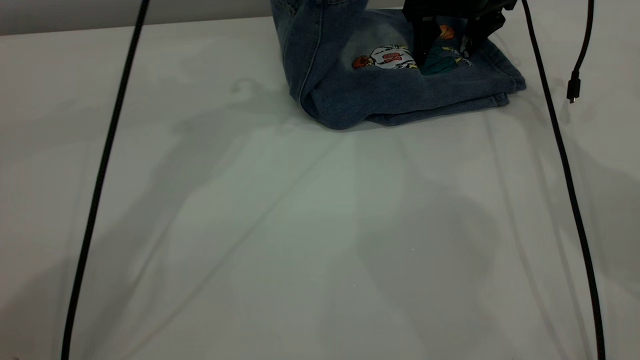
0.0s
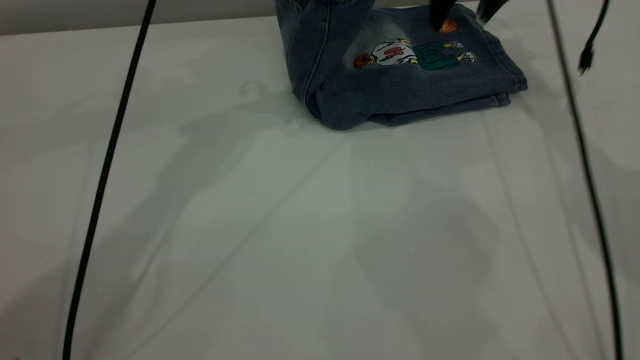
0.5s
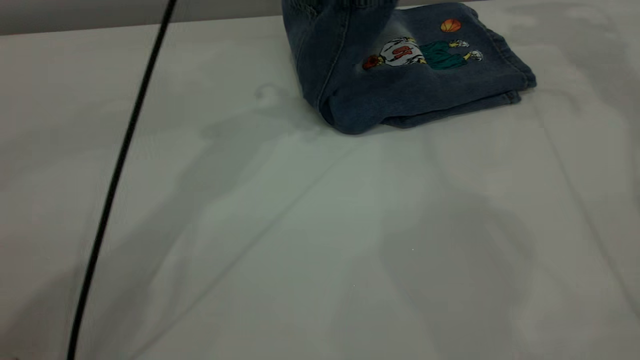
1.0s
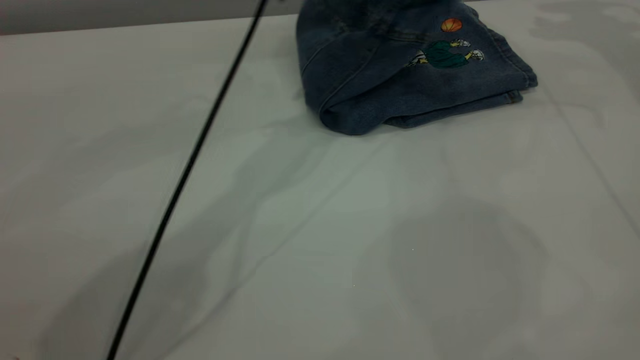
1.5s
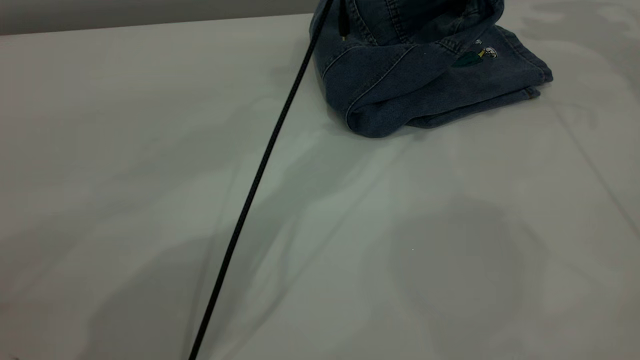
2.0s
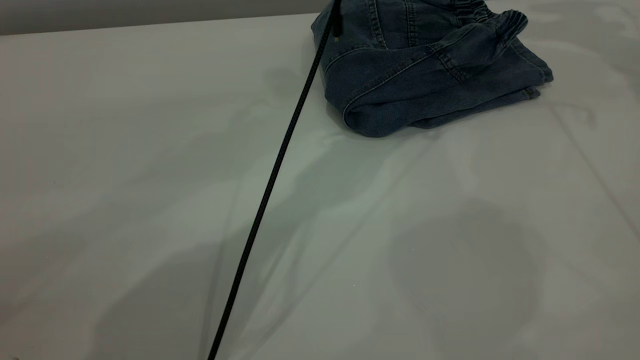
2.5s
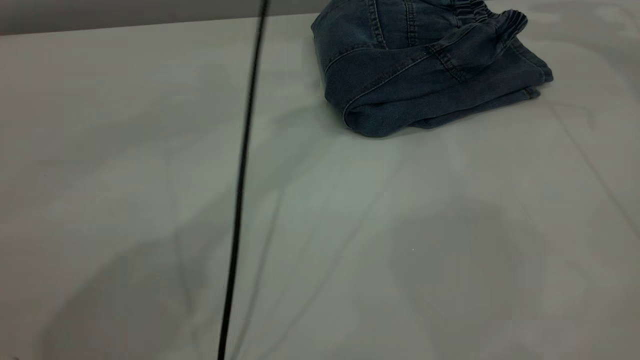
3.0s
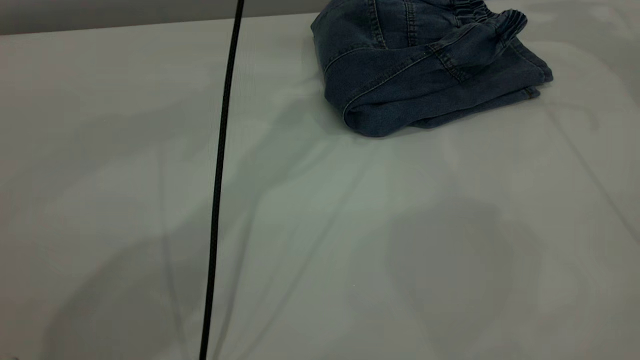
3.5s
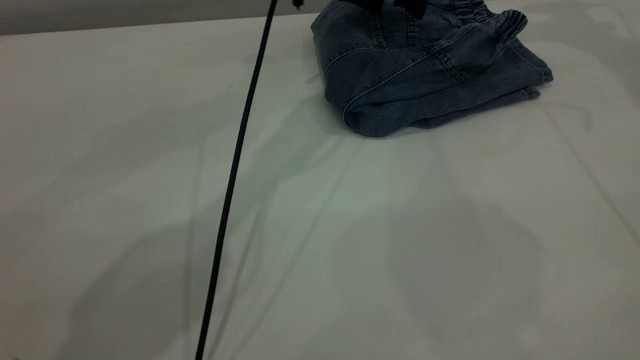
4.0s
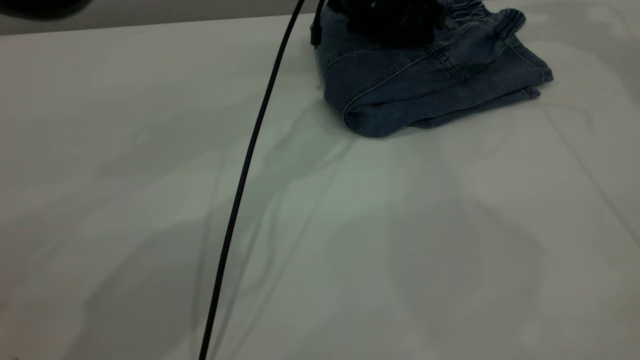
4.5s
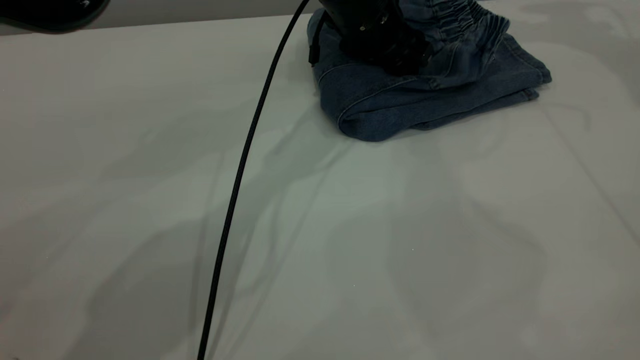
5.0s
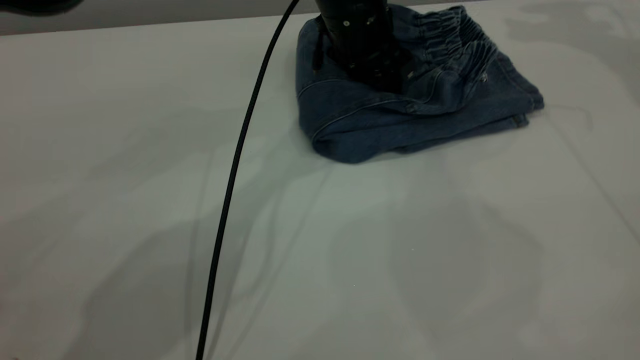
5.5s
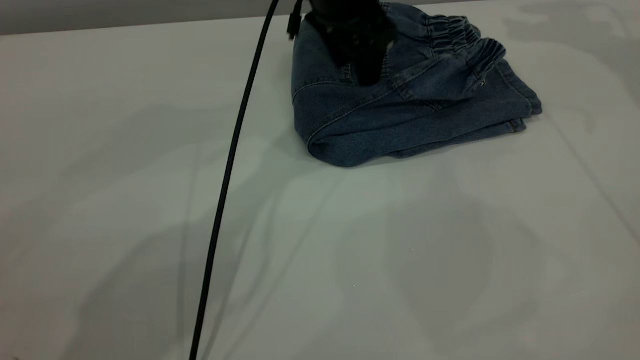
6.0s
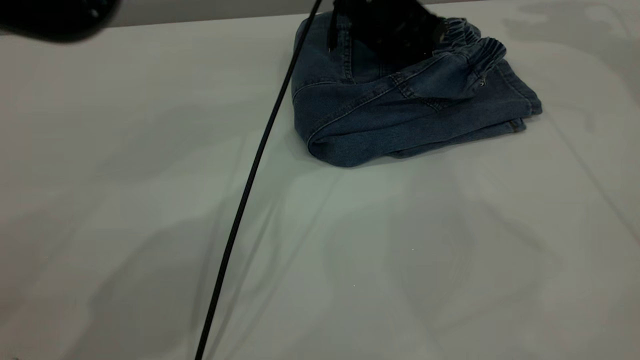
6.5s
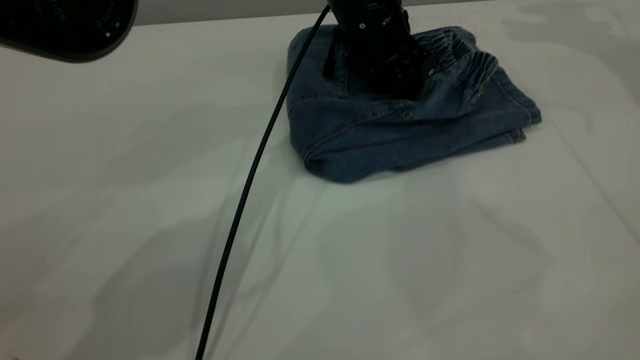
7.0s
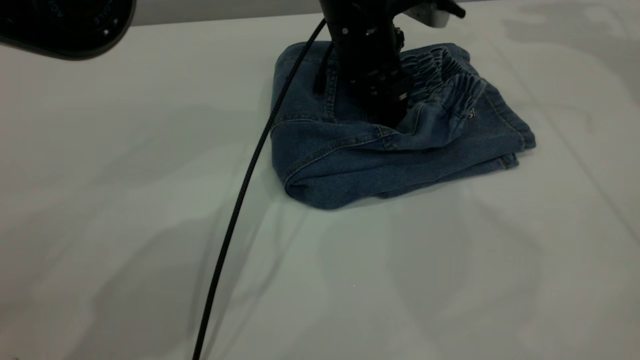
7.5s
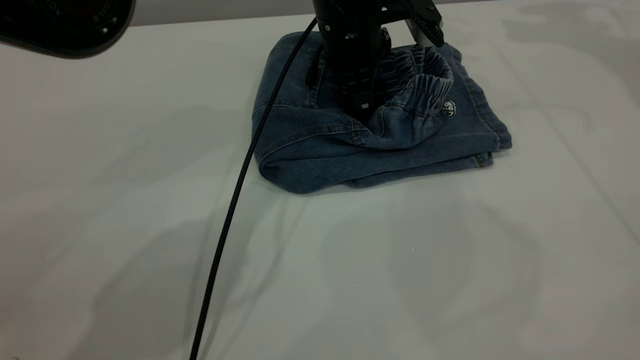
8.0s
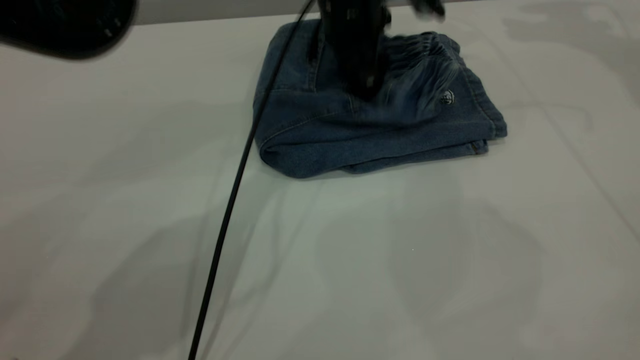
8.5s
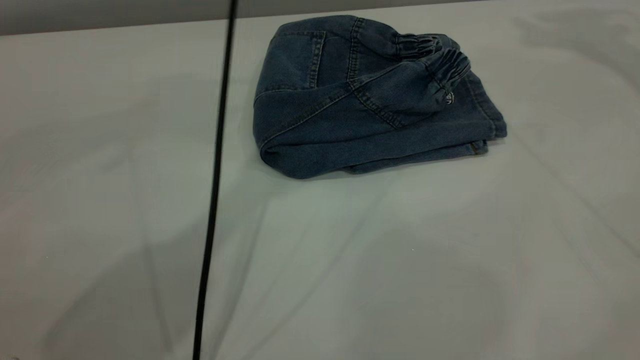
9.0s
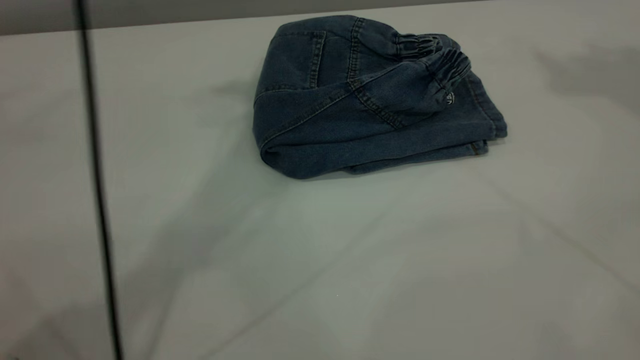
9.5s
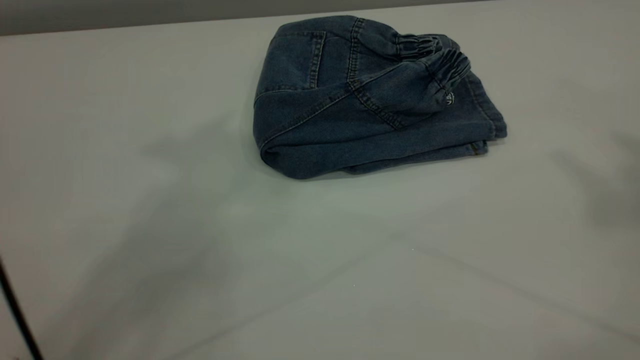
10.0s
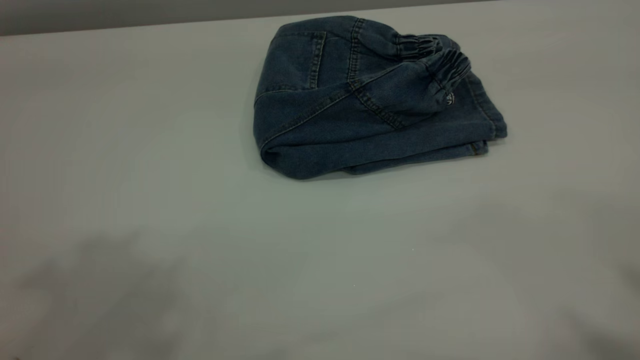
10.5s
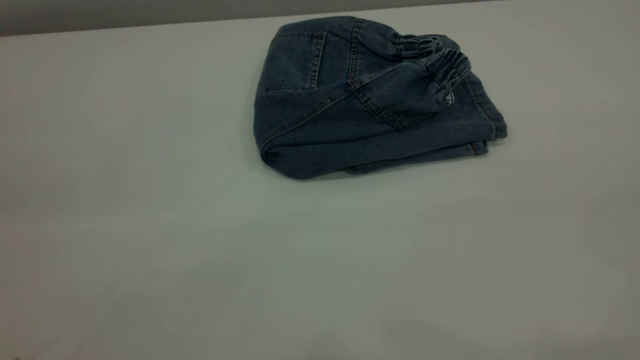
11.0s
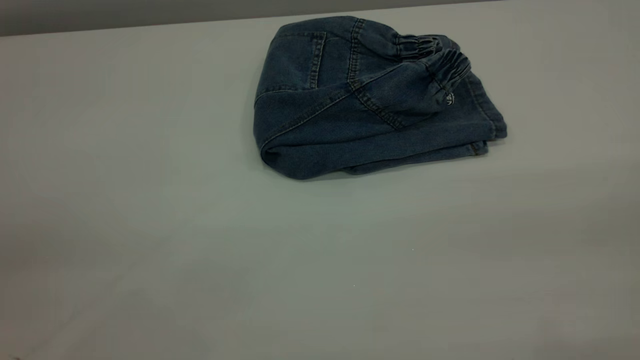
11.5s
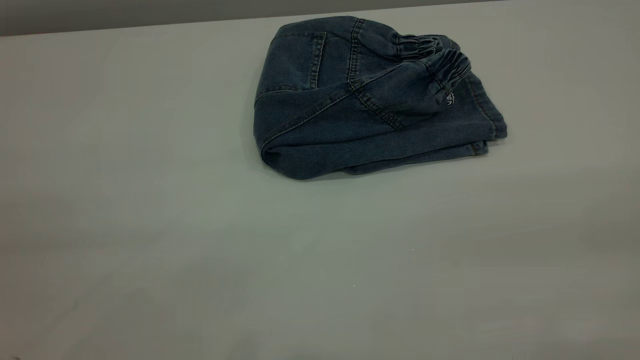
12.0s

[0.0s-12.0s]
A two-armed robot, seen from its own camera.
Step, 0.0s to 2.5s: Fold the pants from left to right.
0.0s to 2.0s: The right gripper travels upward and to the right by about 25 cm. Meanwhile the left gripper heads to the right and downward, covering about 15 cm.
2.0s to 4.0s: The left gripper is displaced to the left by approximately 5 cm, moves approximately 10 cm upward and comes back, and opens.
6.0s to 8.0s: The left gripper shifts about 5 cm downward.
8.0s to 10.0s: The right gripper is displaced backward and upward by about 40 cm. Meanwhile the left gripper shifts approximately 50 cm upward.
